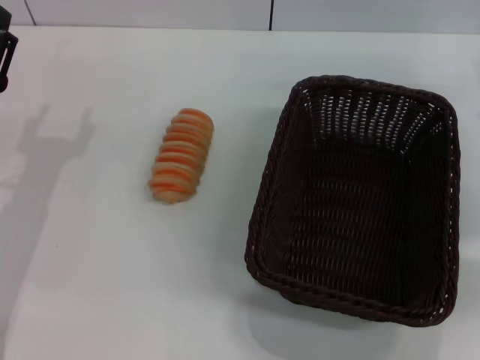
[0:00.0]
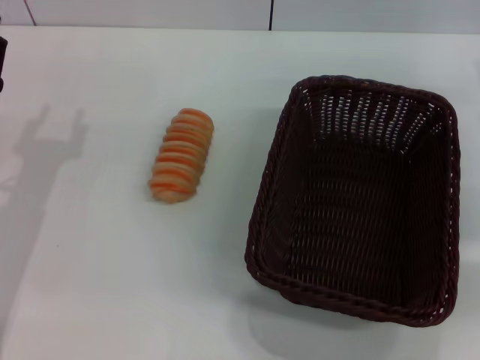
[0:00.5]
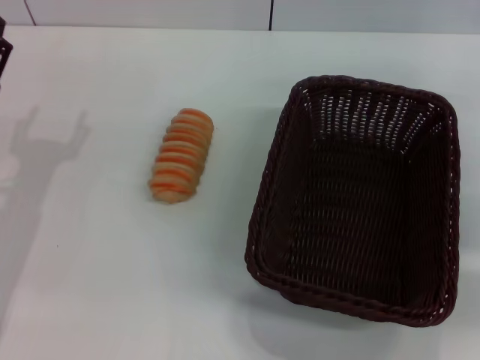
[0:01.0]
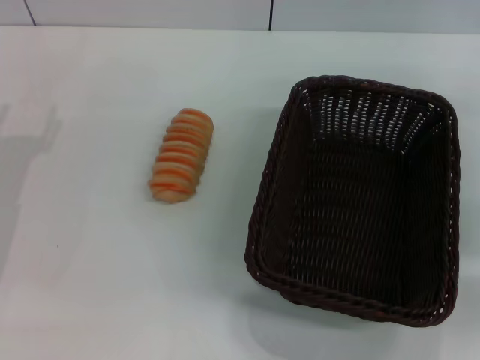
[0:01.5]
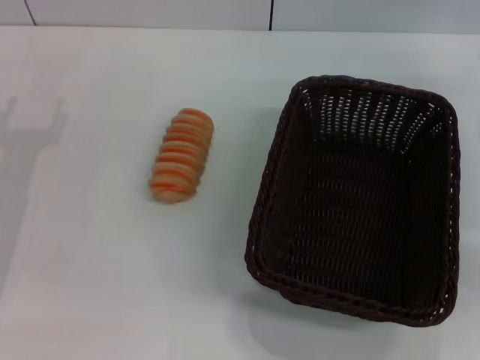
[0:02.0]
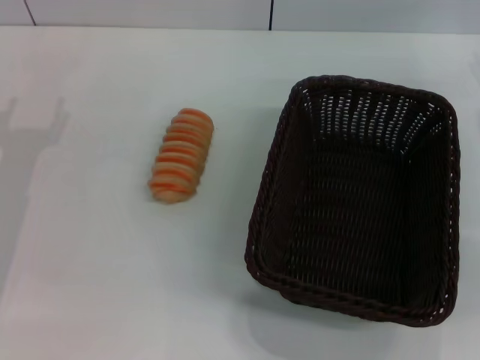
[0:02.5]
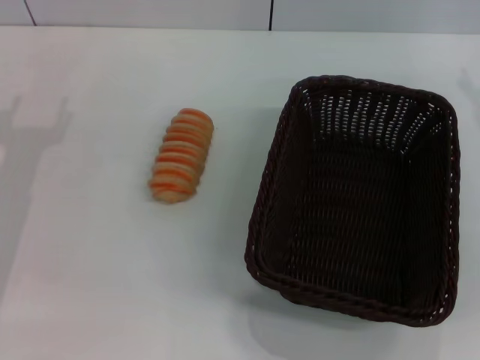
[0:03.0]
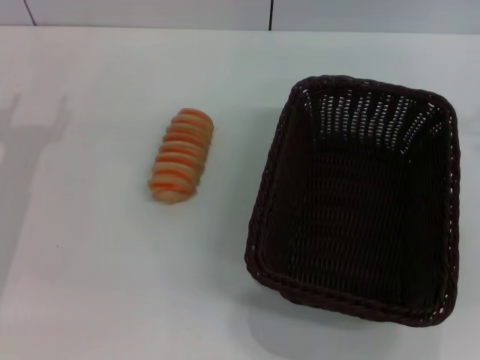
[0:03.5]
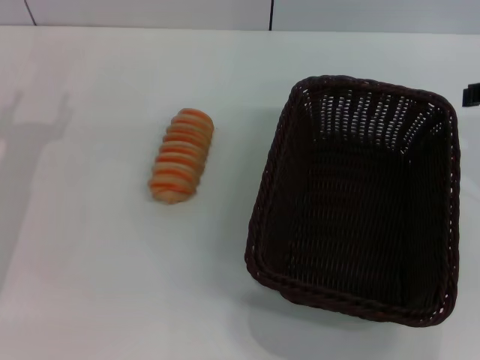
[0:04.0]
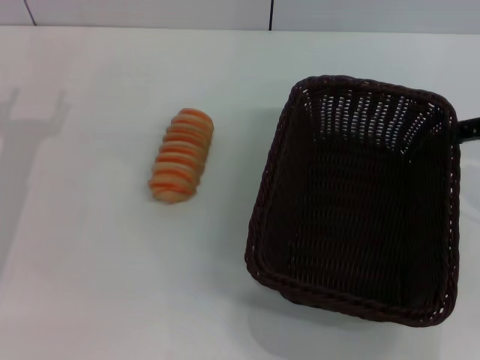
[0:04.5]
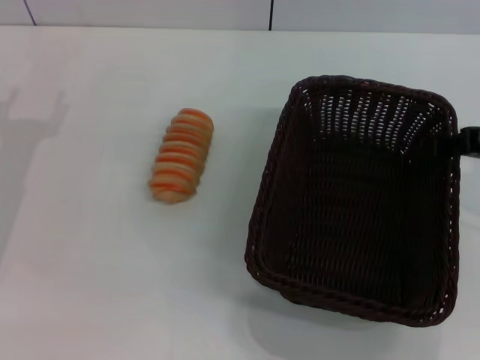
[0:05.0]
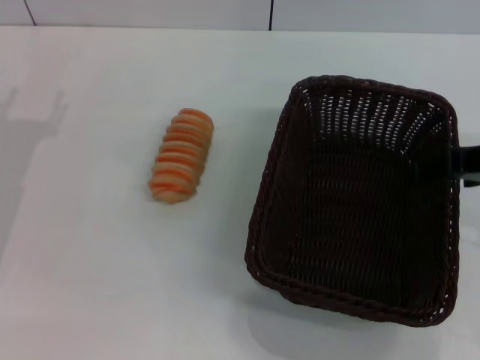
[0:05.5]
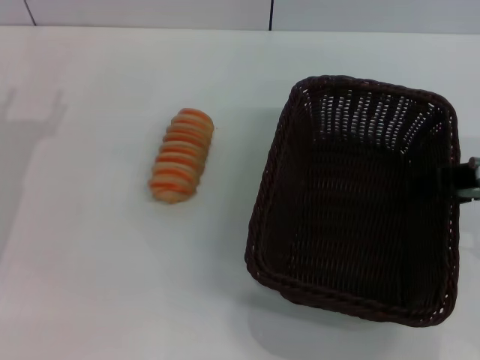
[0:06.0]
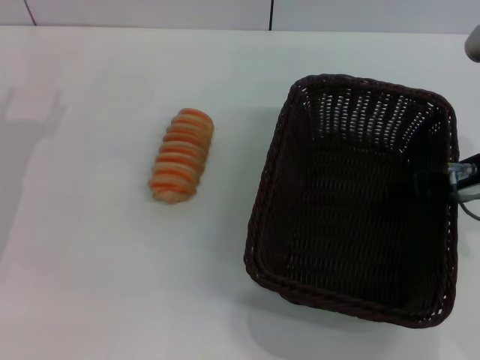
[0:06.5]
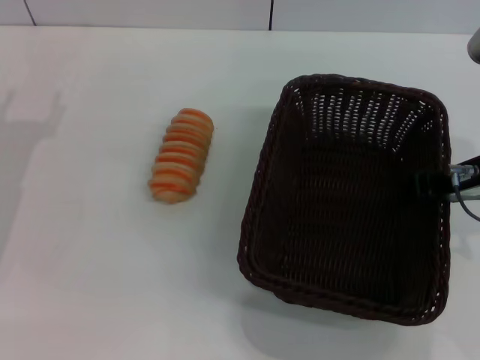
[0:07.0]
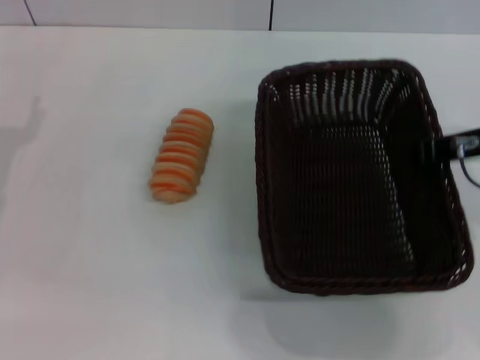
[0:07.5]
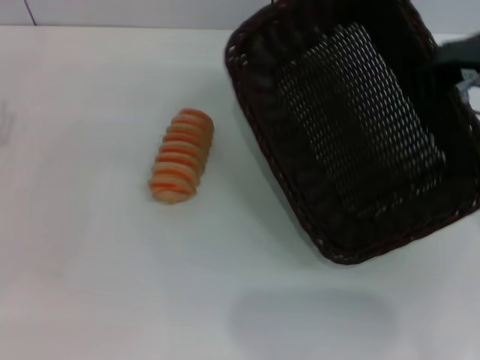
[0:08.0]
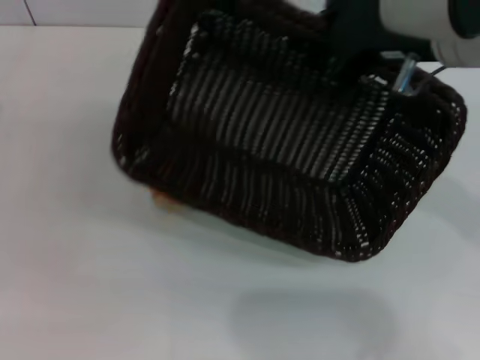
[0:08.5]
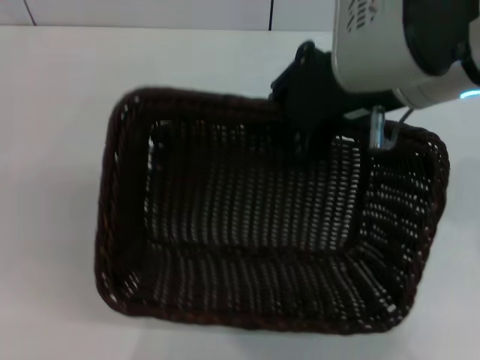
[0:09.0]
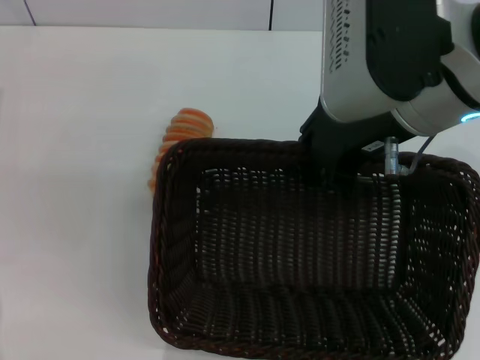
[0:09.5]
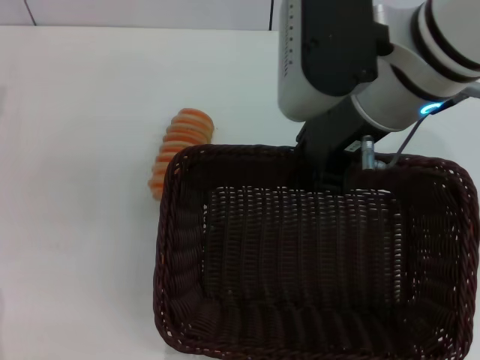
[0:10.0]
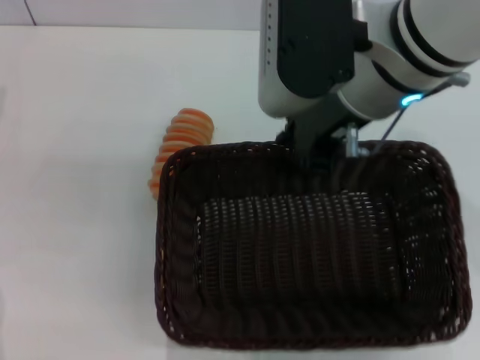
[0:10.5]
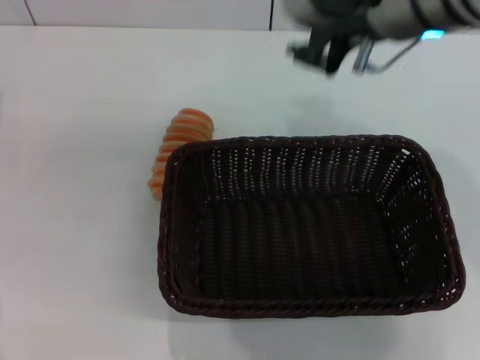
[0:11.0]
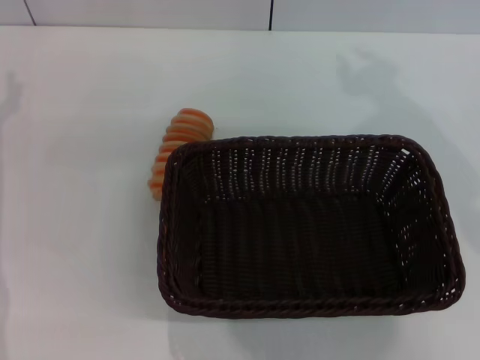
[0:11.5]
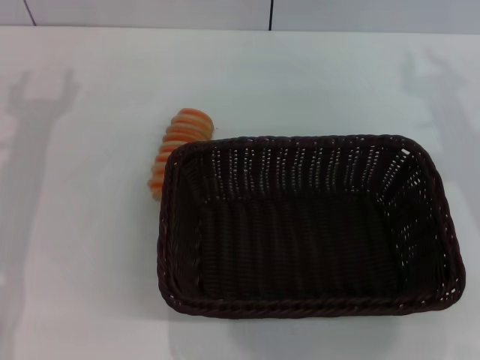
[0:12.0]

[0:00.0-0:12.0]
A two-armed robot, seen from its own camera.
Step, 0:00.0 to 0:08.0: Pick up the dark basket with the right gripper.
Step, 0:08.5 to 0:10.5: Place the dark basket in the center of view with the right gripper.
0:00.0 to 0:02.0: The left gripper closes and opens again.
0:04.0 to 0:06.0: The right gripper shifts about 5 cm downward.
0:06.0 to 0:08.0: The right gripper closes up.
0:08.0 to 0:10.0: The right gripper is displaced to the left by about 10 cm.
0:10.0 to 0:12.0: The right gripper shifts about 15 cm to the right, while the left gripper changes place by roughly 5 cm.

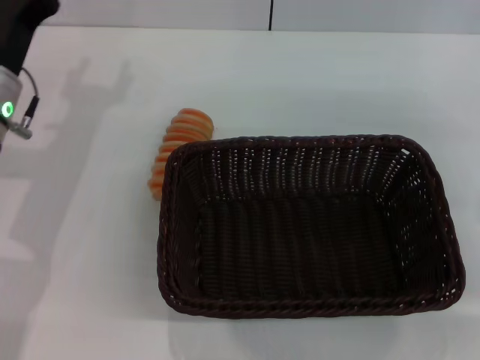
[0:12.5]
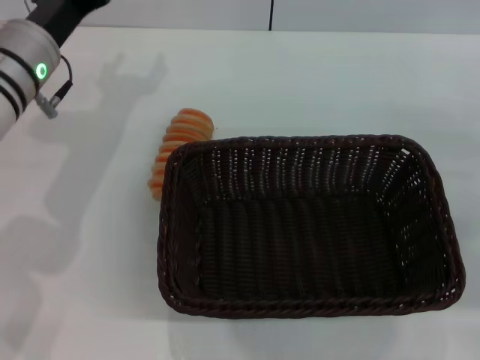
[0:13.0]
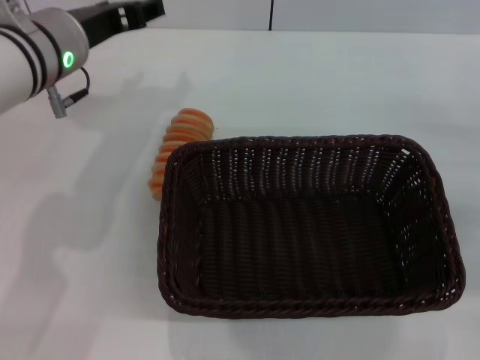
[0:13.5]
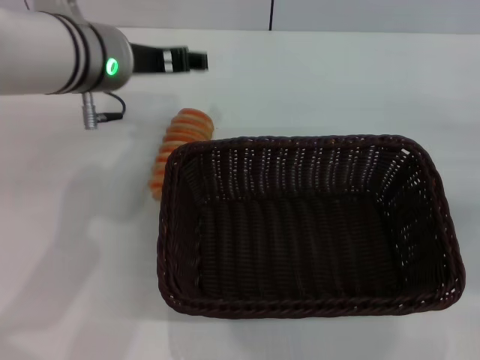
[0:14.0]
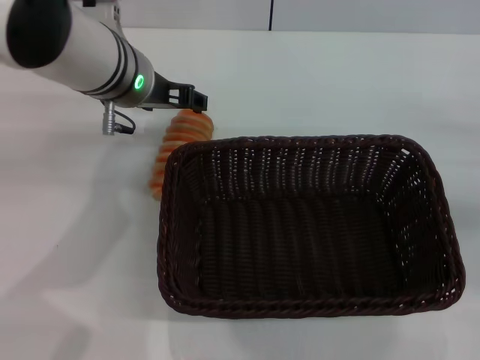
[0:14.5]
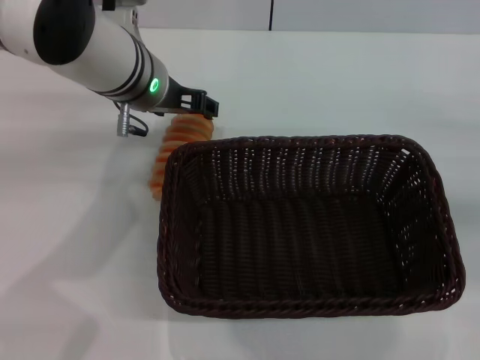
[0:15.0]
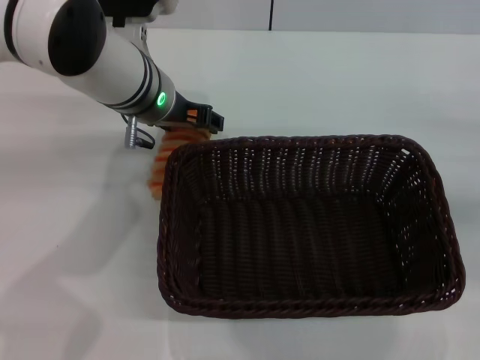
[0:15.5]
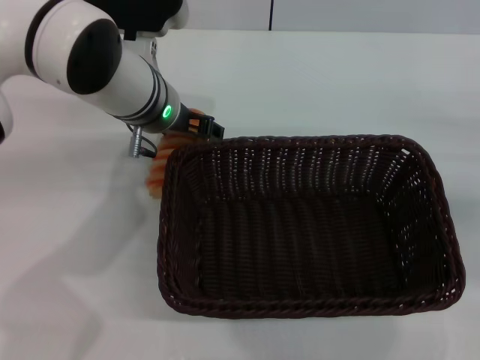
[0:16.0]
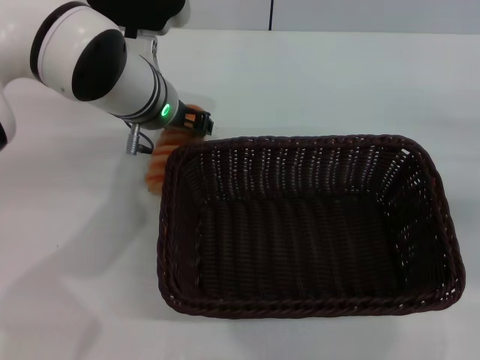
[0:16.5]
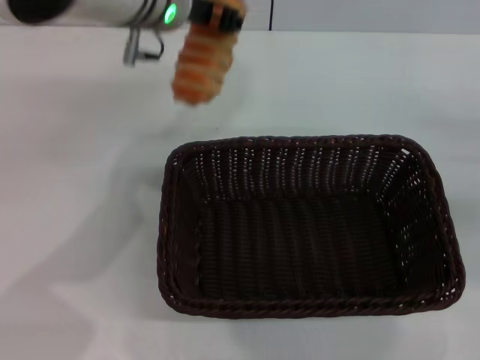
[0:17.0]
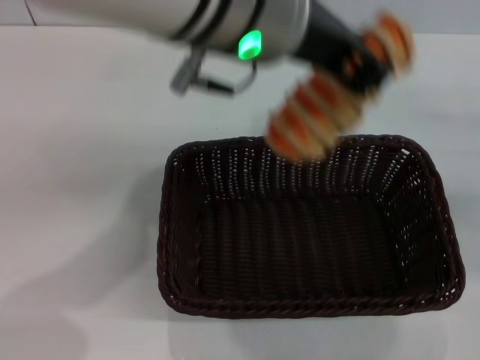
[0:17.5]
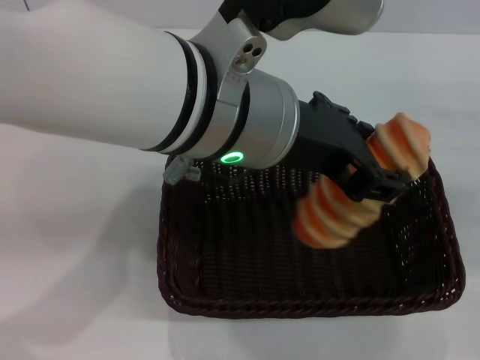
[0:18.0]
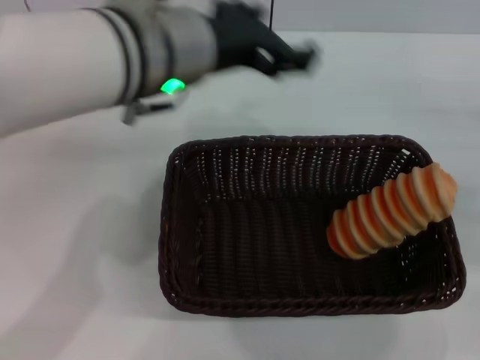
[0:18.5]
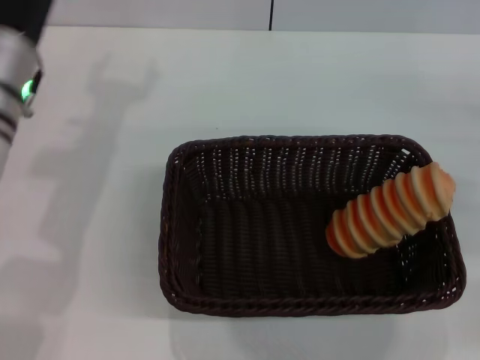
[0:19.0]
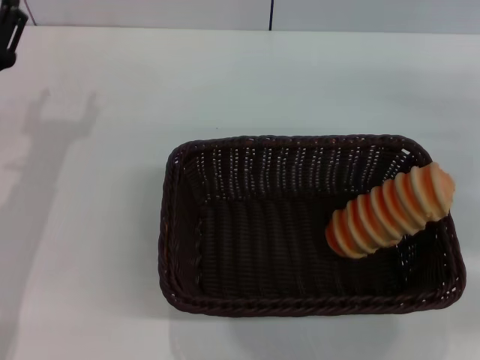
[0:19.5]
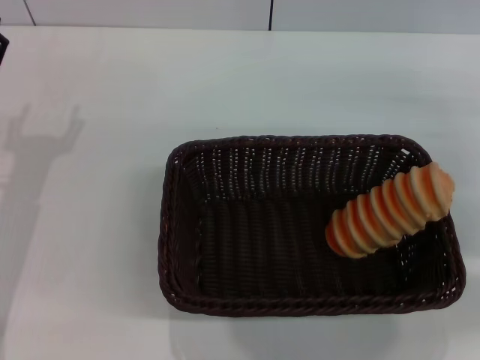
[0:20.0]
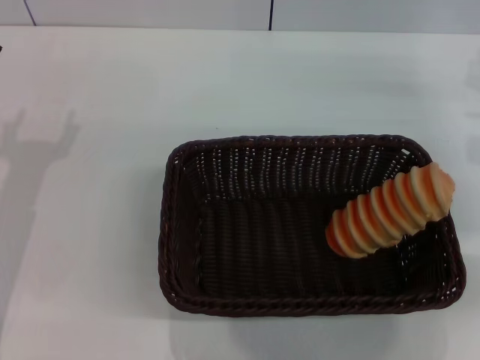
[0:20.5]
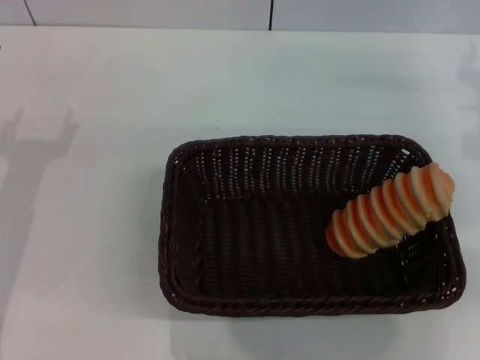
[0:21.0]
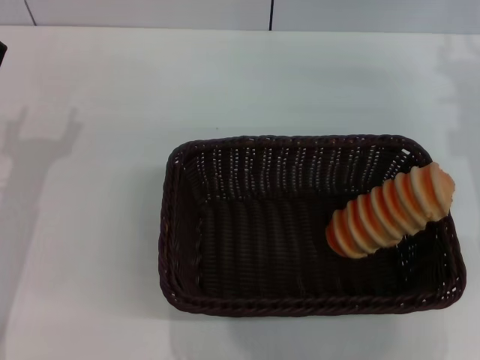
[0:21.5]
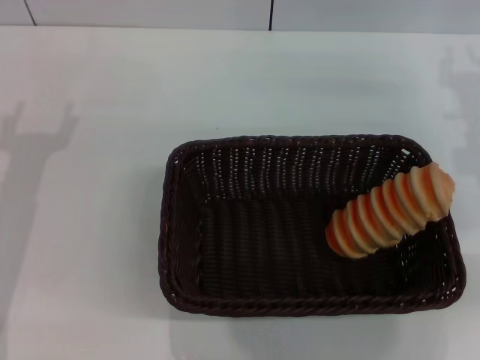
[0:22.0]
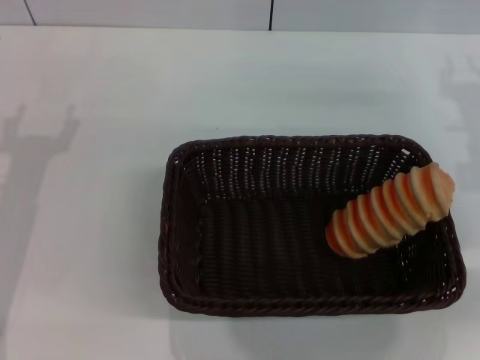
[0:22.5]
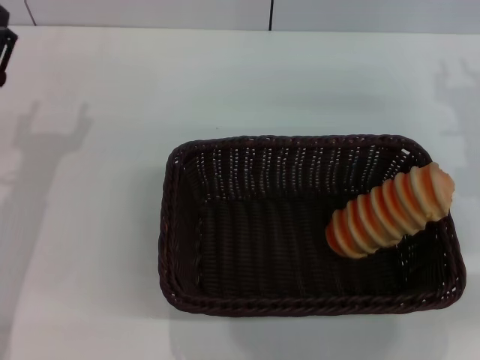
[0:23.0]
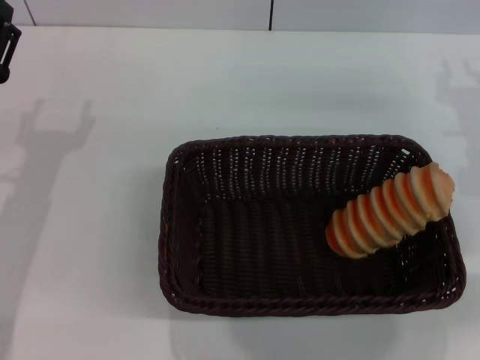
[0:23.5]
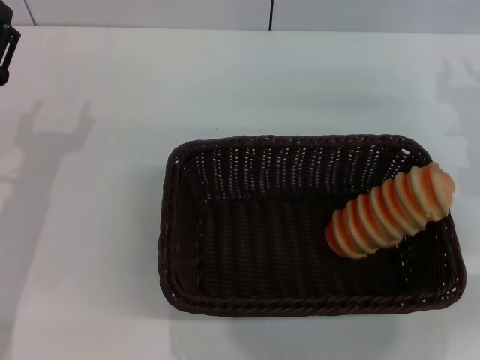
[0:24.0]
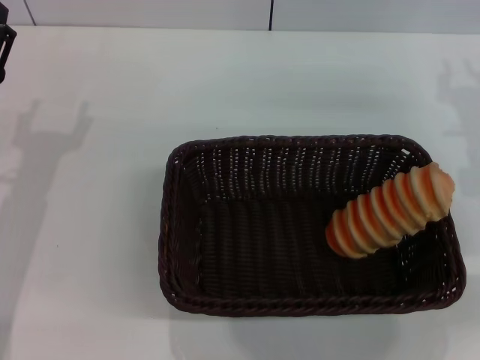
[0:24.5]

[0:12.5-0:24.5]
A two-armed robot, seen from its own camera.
Step, 0:12.5 to 0:16.5: Pick up the long bread with the left gripper.
Step, 0:17.5 to 0:18.0: Place the long bread into the dark basket with the left gripper.
0:12.5 to 0:14.5: The right gripper moves to the right, approximately 5 cm; the left gripper is displaced to the right and upward by roughly 15 cm.
0:14.5 to 0:16.5: The left gripper closes its fingers.
0:16.5 to 0:18.5: The left gripper goes some 15 cm upward and backward, and opens.
0:18.5 to 0:20.5: The right gripper goes about 10 cm to the left; the left gripper goes approximately 25 cm to the left and downward.
0:22.5 to 0:24.5: Neither gripper changes place.

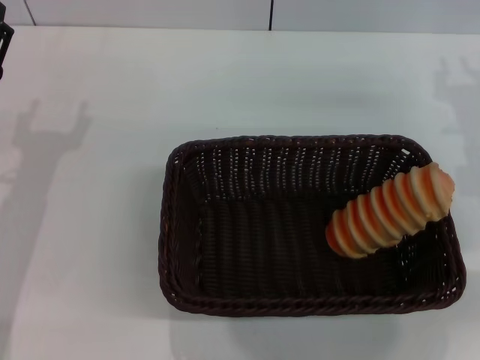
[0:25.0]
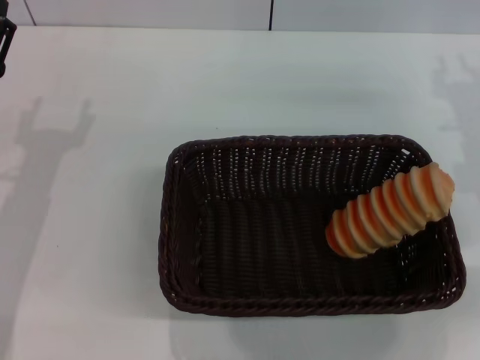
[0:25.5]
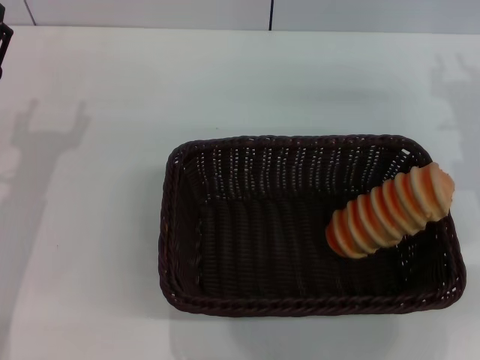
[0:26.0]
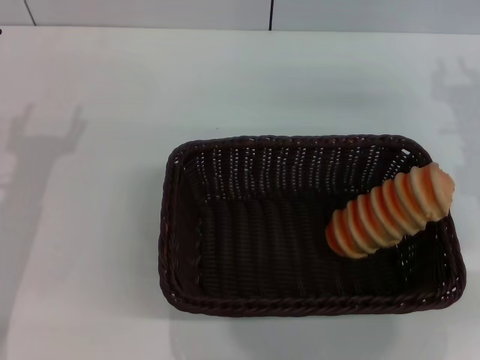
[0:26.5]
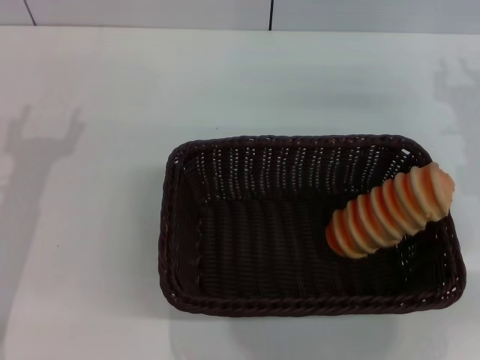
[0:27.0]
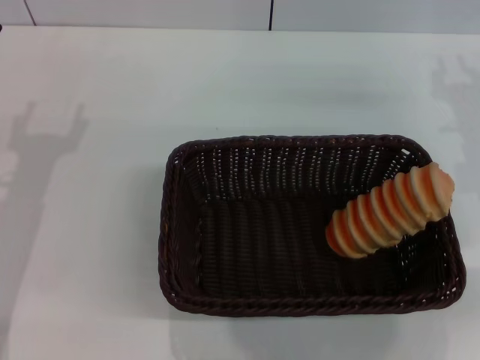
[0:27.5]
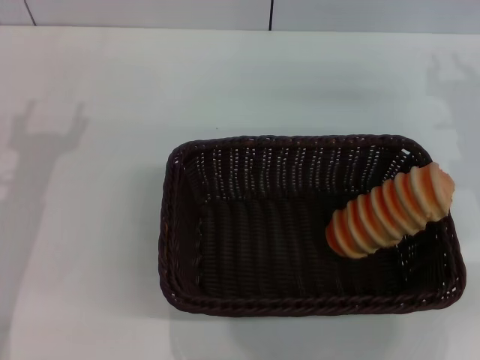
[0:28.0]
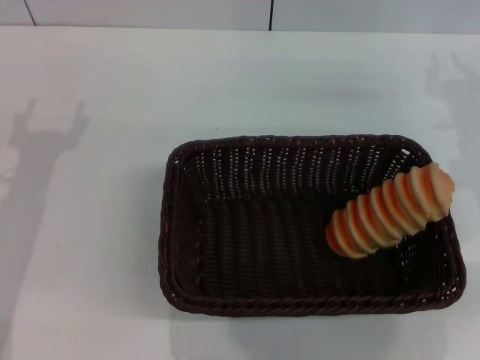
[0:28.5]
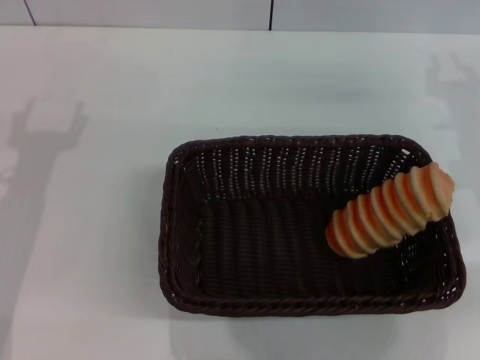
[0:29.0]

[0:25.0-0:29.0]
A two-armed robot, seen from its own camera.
0:25.0 to 0:27.0: Both grippers stay put.
0:27.0 to 0:29.0: Both grippers stay put.
